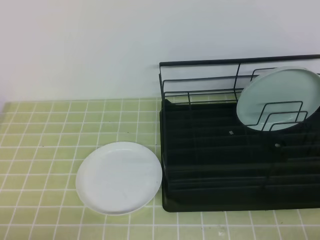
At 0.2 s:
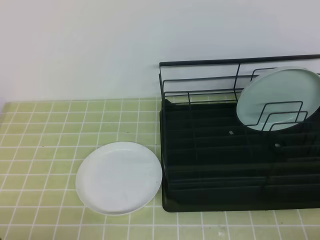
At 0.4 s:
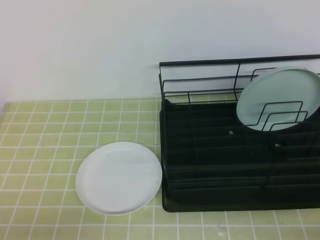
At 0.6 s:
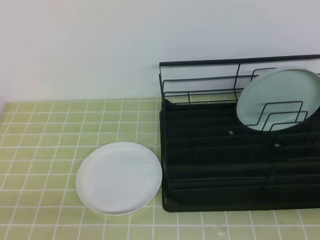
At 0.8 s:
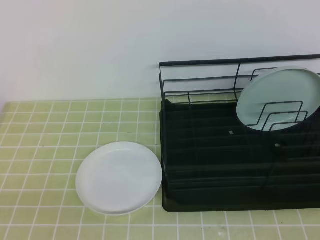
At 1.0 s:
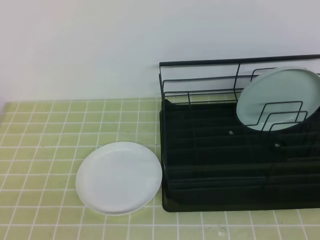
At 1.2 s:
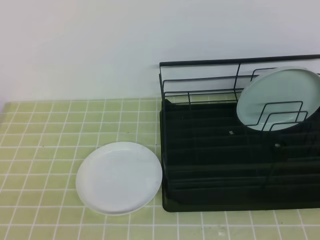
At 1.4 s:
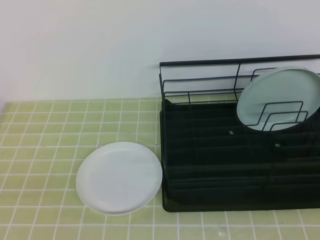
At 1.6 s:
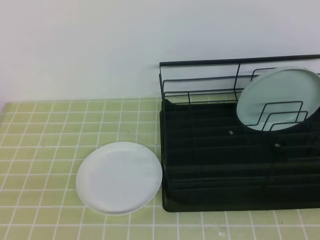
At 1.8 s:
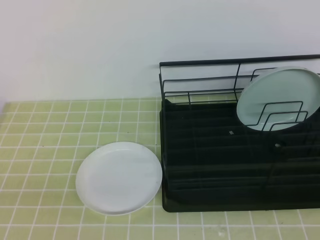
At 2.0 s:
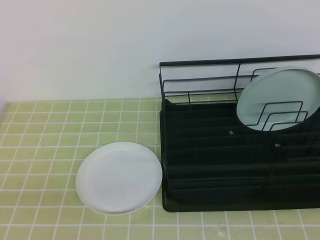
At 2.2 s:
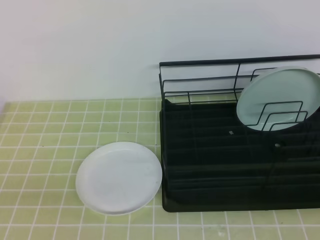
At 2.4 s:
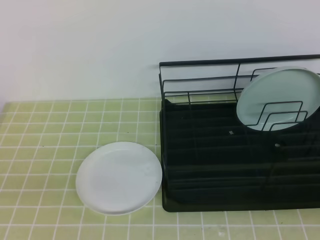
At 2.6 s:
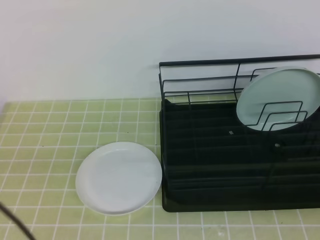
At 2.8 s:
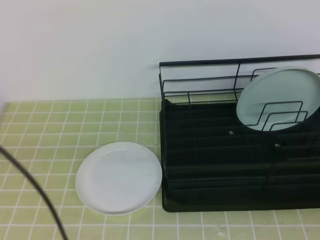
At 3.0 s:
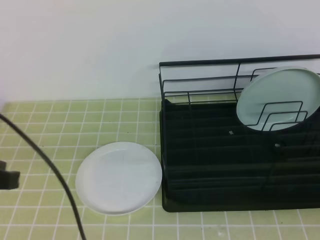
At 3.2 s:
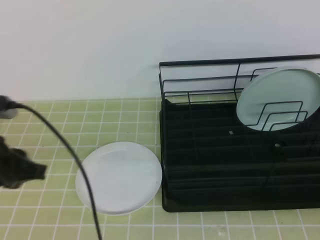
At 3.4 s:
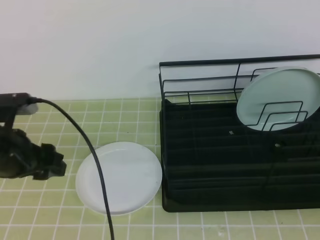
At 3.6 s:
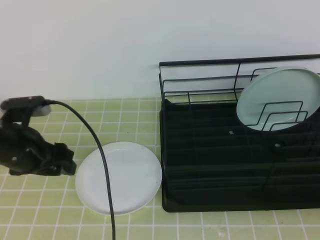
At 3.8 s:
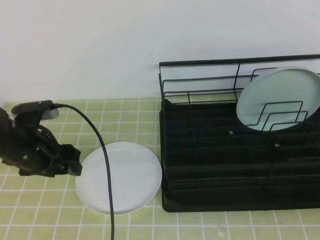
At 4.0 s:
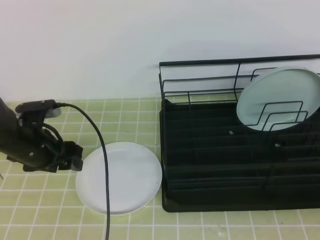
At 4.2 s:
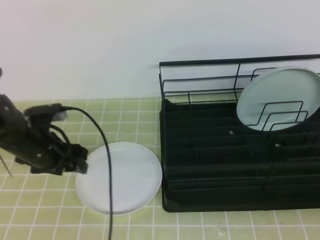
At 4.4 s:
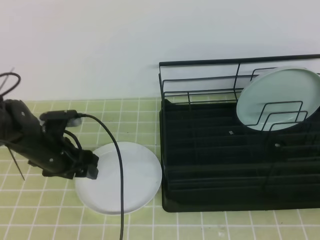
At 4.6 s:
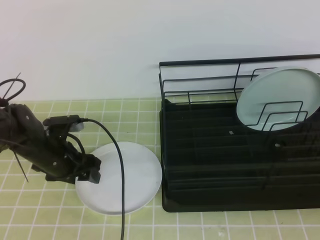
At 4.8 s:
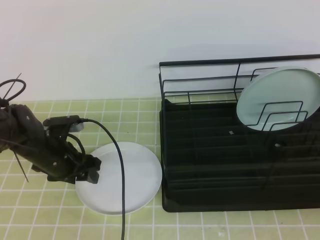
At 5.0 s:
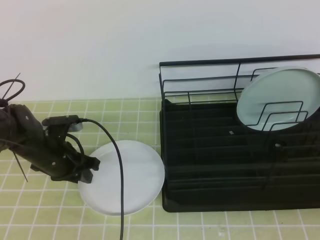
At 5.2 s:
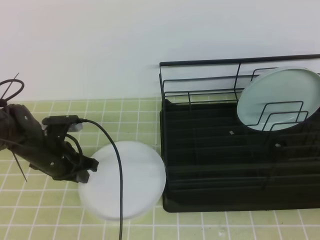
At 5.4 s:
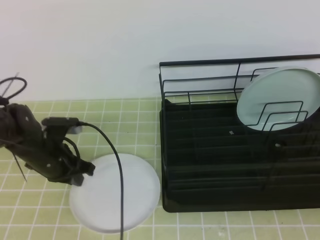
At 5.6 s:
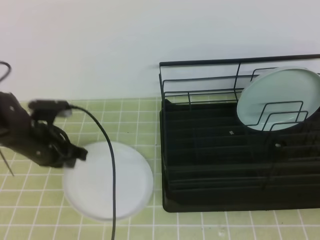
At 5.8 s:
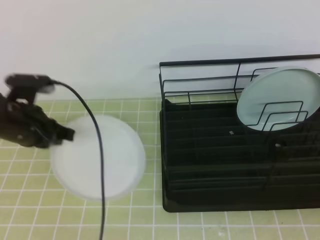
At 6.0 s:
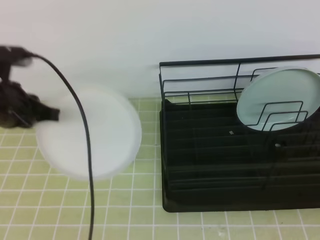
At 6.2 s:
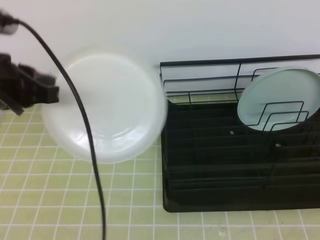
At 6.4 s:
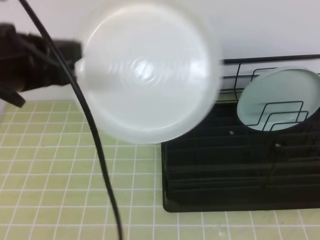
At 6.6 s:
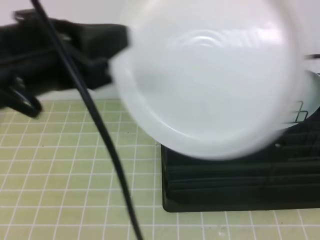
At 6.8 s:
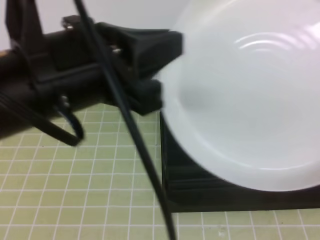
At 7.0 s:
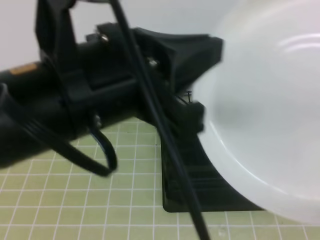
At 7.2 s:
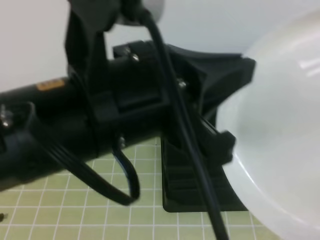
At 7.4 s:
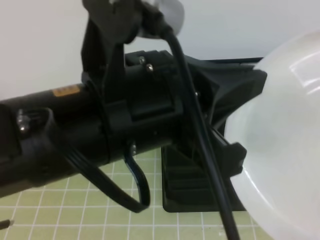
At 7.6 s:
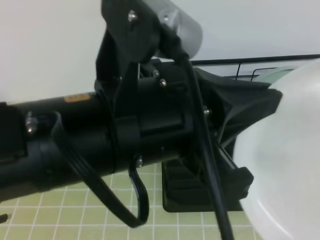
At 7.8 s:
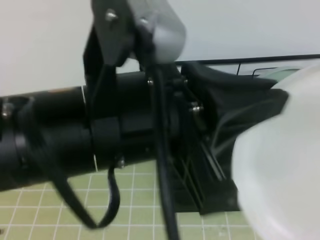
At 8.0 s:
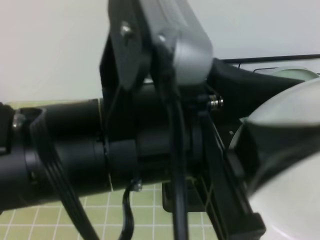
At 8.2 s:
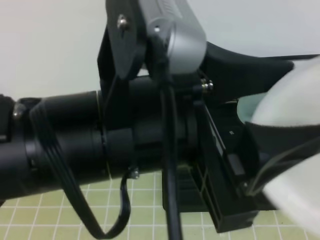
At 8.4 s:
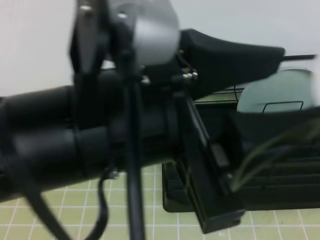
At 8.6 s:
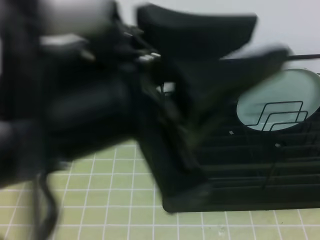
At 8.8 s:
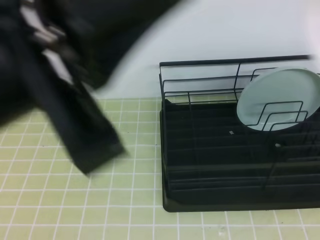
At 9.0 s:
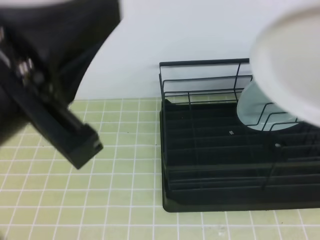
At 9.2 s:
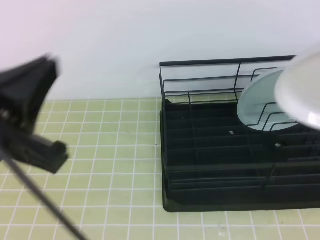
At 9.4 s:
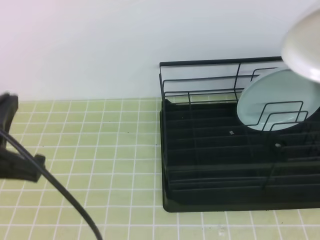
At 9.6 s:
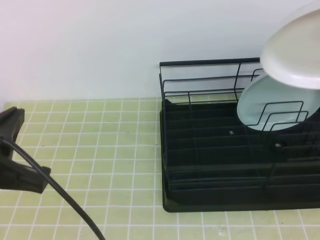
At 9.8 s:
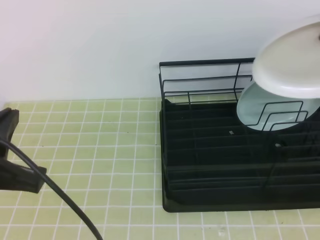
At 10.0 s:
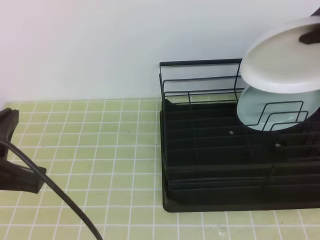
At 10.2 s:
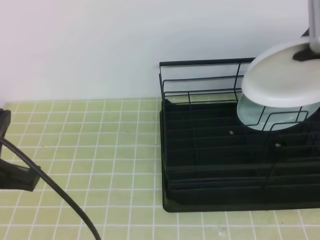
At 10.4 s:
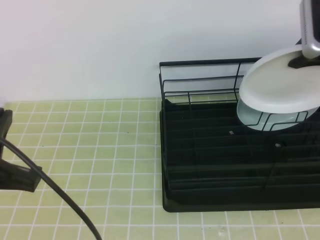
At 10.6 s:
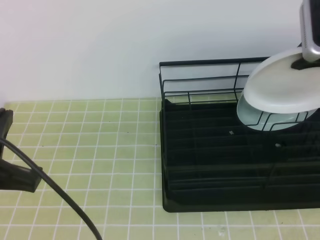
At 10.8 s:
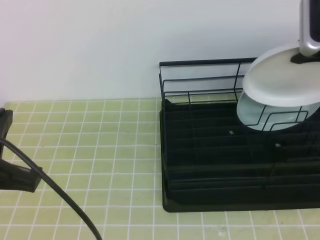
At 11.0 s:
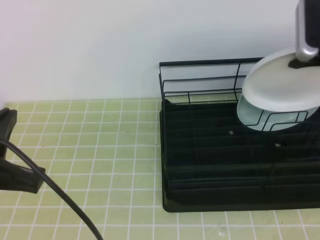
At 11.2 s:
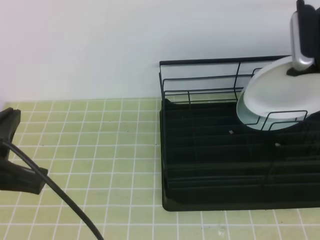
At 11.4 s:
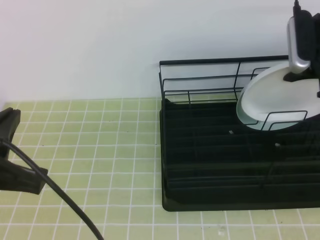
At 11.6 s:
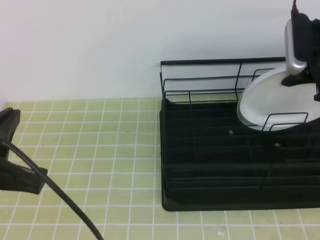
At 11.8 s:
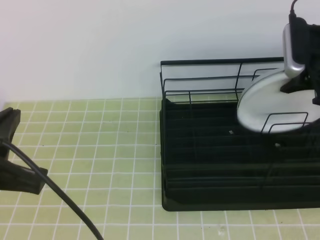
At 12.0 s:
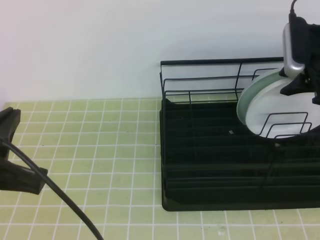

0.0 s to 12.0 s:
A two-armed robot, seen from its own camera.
1.6 to 3.0 s: The left gripper heads forward, covering some 15 cm.
3.0 to 4.4 s: The left gripper shifts about 25 cm forward and downward, and opens its fingers.
4.4 to 6.0 s: The left gripper is displaced upward by some 15 cm, and closes its fingers.
6.0 to 7.6 s: The right gripper is displaced upward and to the left by approximately 10 cm, and opens. The left gripper moves backward, to the right and upward, about 25 cm.
7.6 to 9.0 s: The left gripper moves to the left, some 10 cm, and opens, then closes again, while the right gripper travels upward and forward by approximately 15 cm, and closes up.
9.0 to 10.4 s: The left gripper is displaced downward and to the left by approximately 15 cm, while the right gripper shifts some 25 cm forward.
10.4 to 12.0 s: The right gripper travels downward by roughly 5 cm, and opens up.

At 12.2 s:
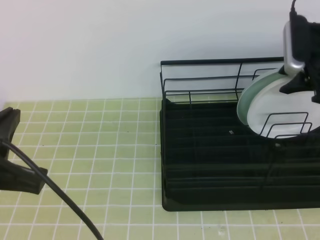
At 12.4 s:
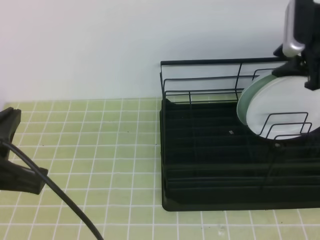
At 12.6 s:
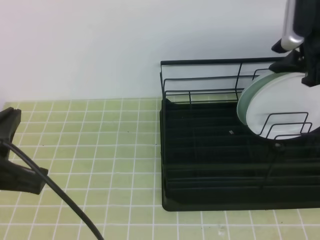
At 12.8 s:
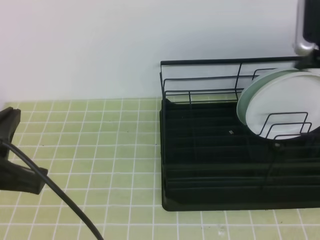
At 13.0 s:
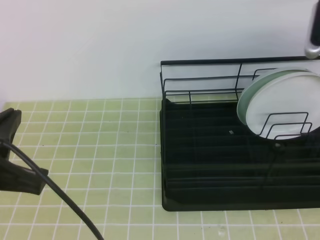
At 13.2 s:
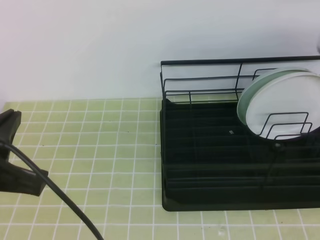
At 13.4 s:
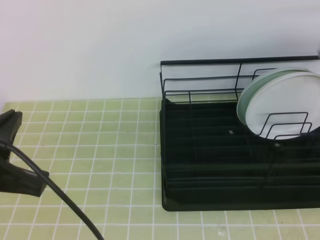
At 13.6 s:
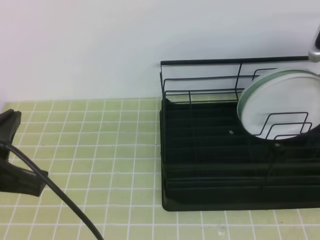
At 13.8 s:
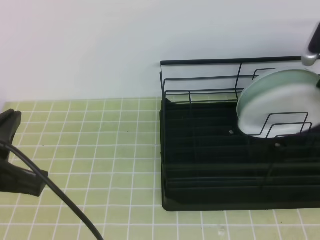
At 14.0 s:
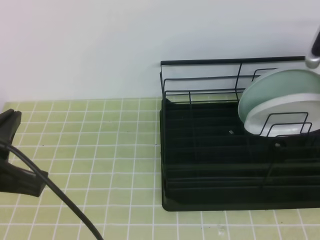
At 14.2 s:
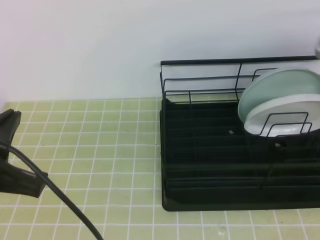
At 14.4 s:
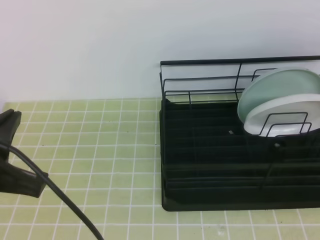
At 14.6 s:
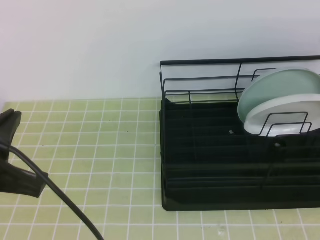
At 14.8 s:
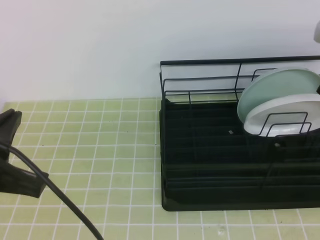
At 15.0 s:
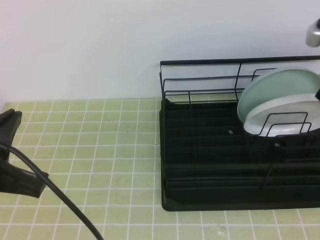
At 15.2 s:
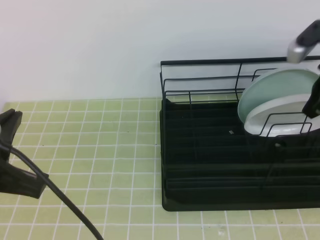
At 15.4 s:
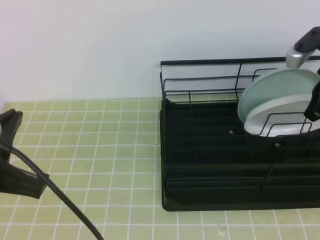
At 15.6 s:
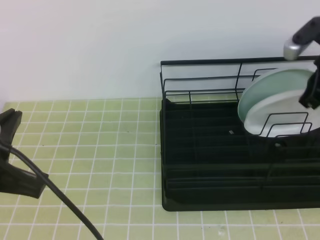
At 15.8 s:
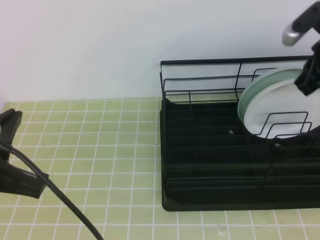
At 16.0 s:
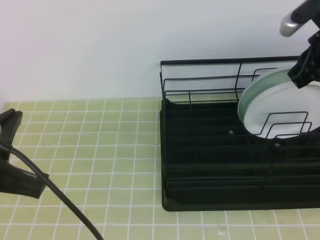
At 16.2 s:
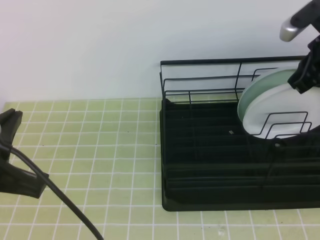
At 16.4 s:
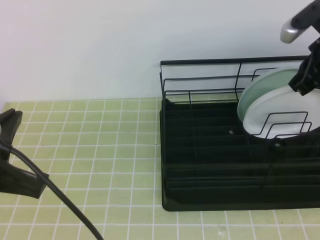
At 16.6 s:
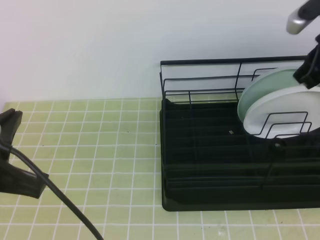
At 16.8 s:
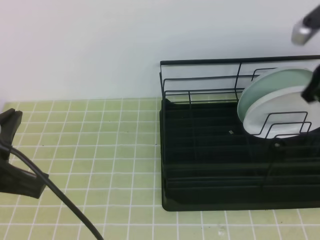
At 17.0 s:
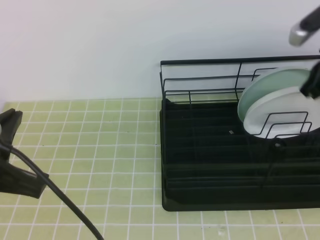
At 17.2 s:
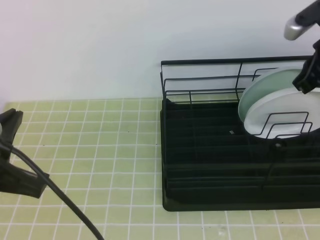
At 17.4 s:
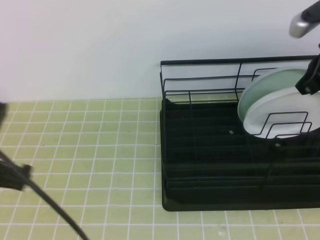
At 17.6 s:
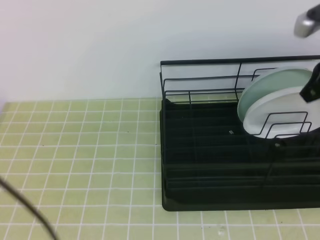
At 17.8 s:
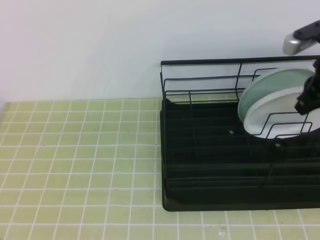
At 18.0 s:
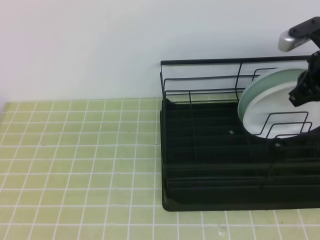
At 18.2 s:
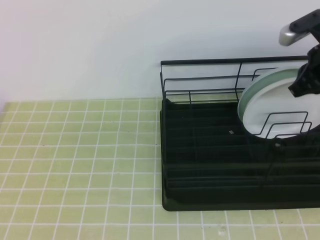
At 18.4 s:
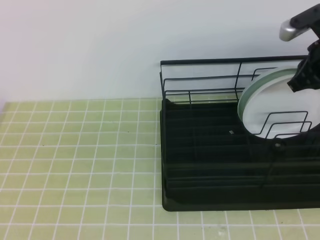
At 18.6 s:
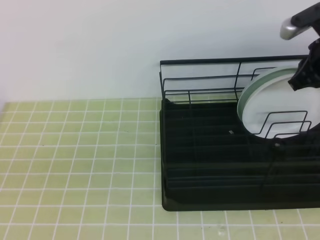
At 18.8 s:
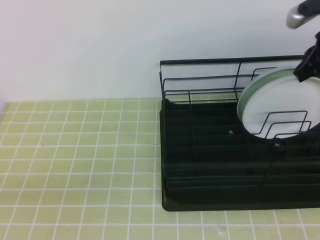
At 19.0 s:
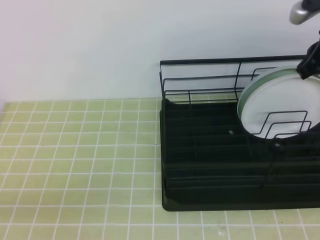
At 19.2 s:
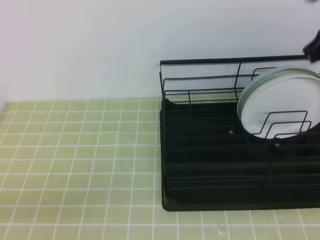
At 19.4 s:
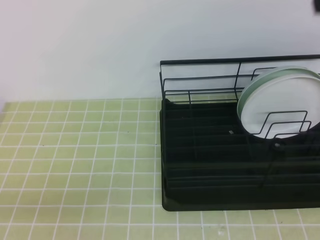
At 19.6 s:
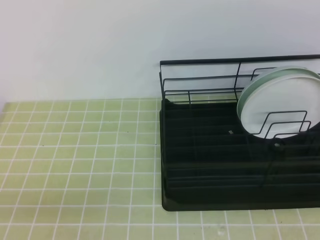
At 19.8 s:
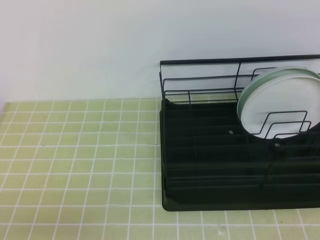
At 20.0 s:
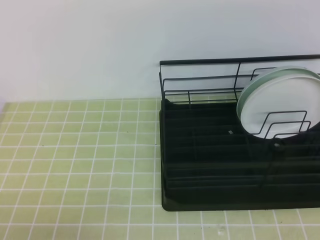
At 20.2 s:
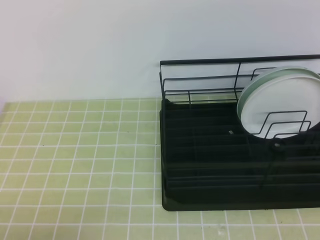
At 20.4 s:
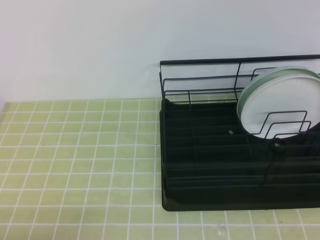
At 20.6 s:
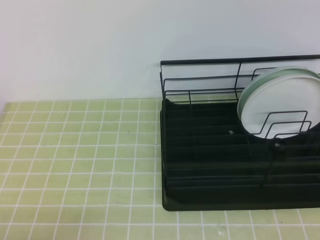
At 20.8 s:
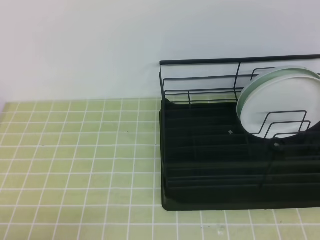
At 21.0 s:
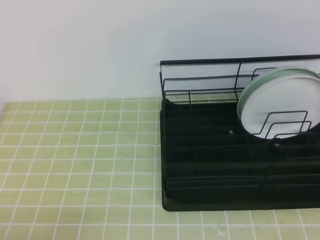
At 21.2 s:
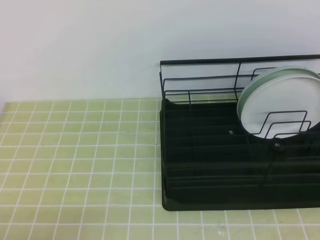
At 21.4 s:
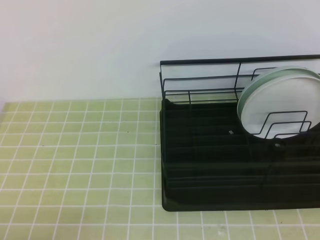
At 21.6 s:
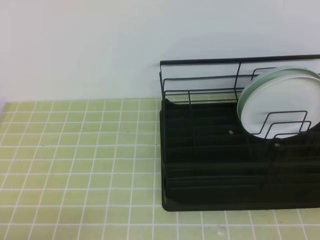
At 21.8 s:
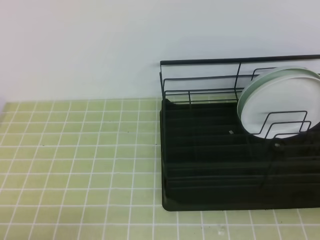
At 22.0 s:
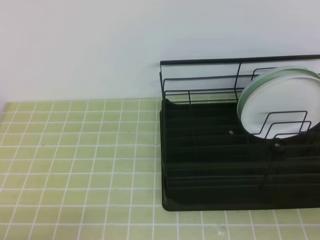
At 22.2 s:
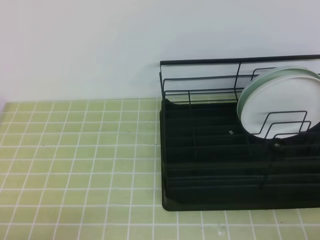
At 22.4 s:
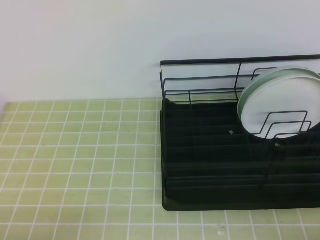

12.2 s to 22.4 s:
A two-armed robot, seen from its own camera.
12.2 to 13.6 s: The left gripper ends up approximately 5 cm from where it was, while the right gripper goes approximately 5 cm to the right, and closes up.
13.6 to 15.2 s: The left gripper moves some 5 cm. The right gripper heads backward, covering some 5 cm.
15.2 to 16.6 s: The grippers make only small movements.
16.6 to 18.0 s: The left gripper shifts approximately 5 cm to the left.
18.0 to 19.4 s: The left gripper goes about 15 cm downward, while the right gripper moves upward and backward, some 15 cm.
21.0 to 22.4 s: The right gripper is displaced downward by roughly 35 cm.
